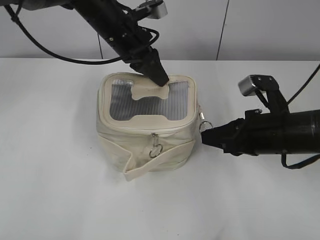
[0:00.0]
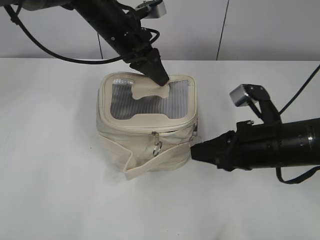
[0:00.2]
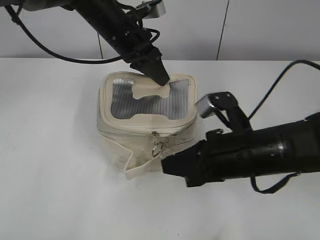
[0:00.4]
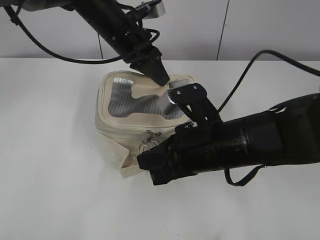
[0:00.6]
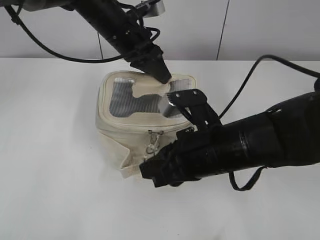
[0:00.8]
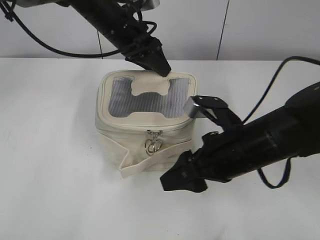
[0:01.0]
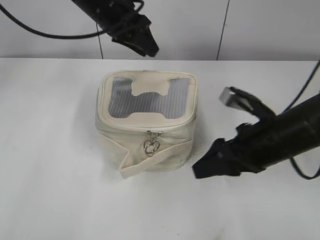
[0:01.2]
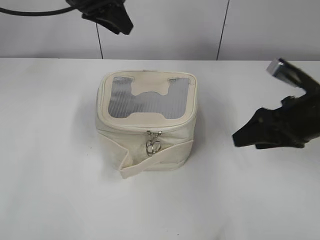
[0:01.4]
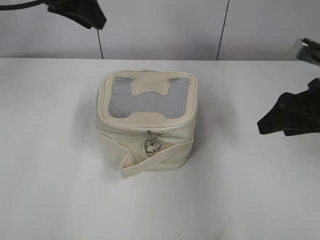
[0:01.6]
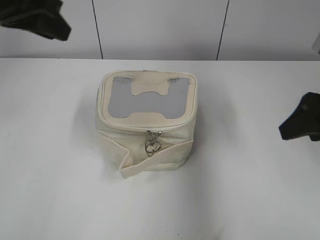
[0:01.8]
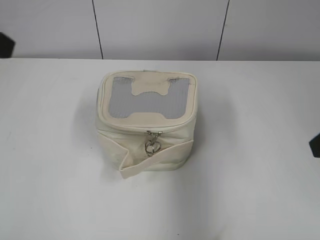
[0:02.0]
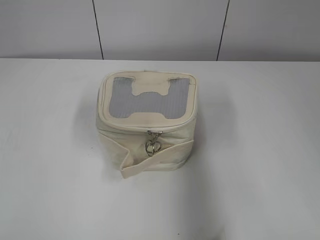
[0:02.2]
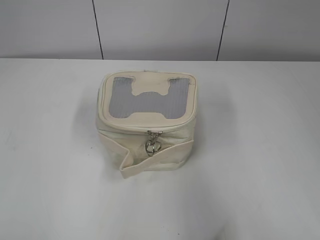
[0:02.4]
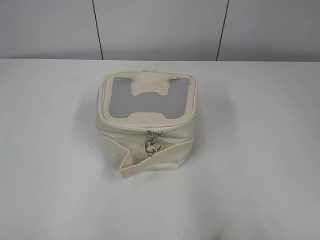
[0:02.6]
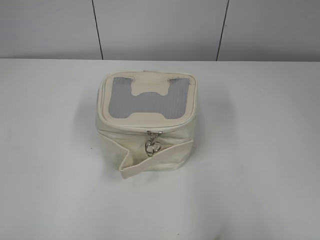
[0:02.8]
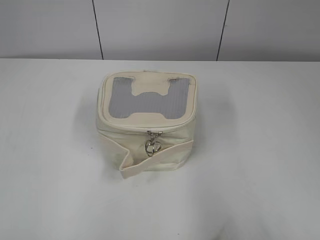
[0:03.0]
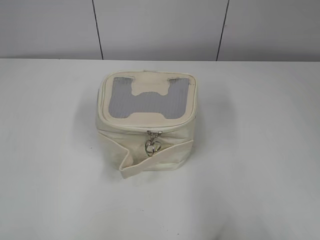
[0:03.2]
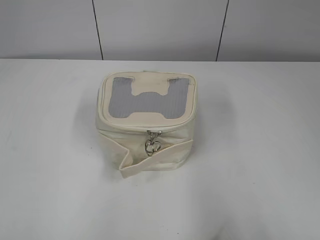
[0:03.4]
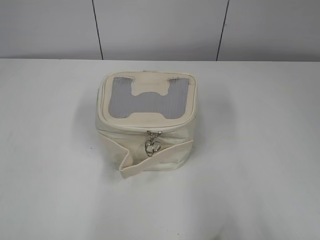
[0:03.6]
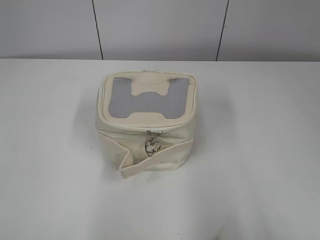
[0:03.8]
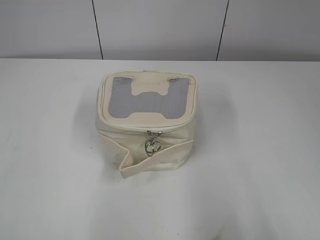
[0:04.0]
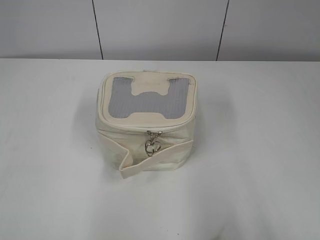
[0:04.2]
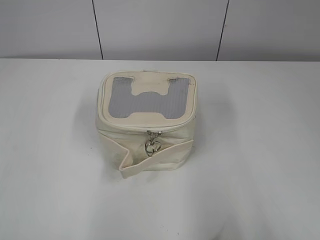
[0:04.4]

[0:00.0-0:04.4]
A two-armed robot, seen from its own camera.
0.0 to 1.4 s: The right gripper reaches about 10 cm to the left, then returns, and opens up. Meanwhile the left gripper moves upward and to the left, roughly 10 cm, and opens.
1.4 to 3.0 s: The left gripper moves backward and to the left, roughly 50 cm. Meanwhile the right gripper is displaced backward by about 25 cm.

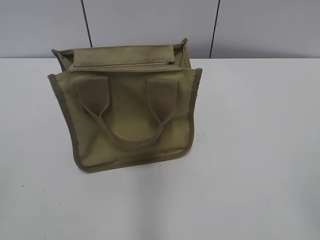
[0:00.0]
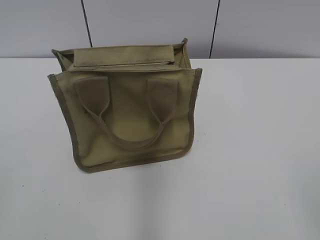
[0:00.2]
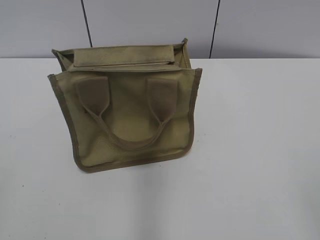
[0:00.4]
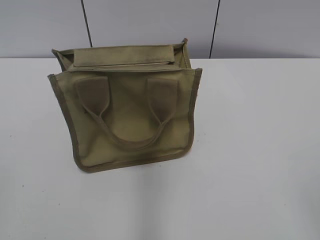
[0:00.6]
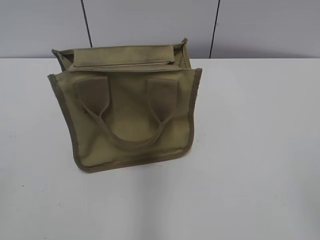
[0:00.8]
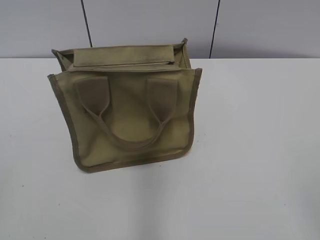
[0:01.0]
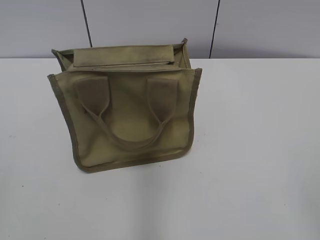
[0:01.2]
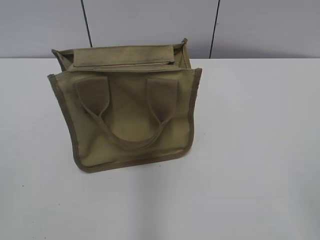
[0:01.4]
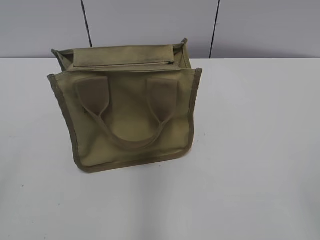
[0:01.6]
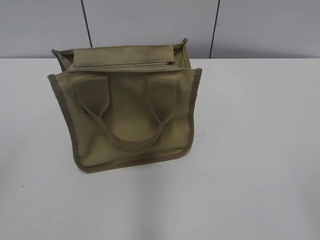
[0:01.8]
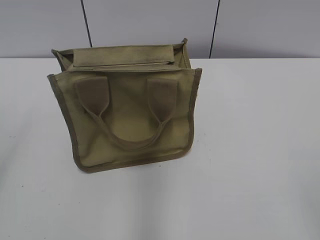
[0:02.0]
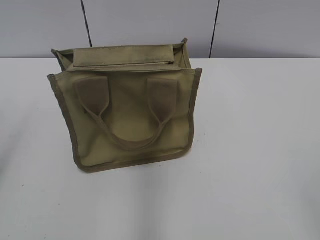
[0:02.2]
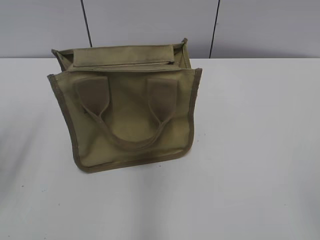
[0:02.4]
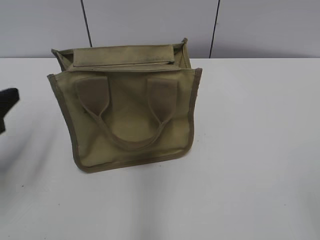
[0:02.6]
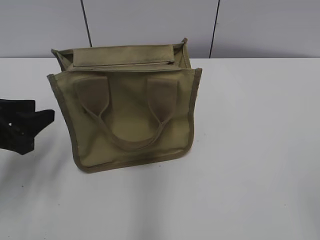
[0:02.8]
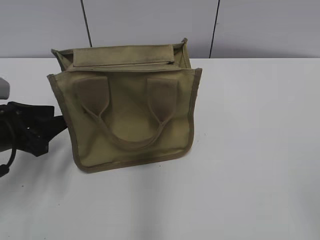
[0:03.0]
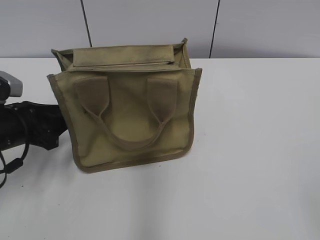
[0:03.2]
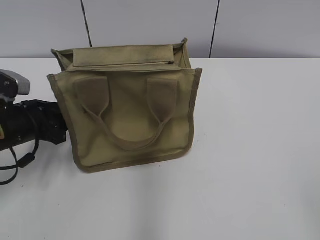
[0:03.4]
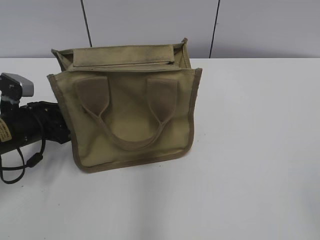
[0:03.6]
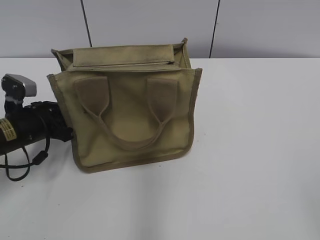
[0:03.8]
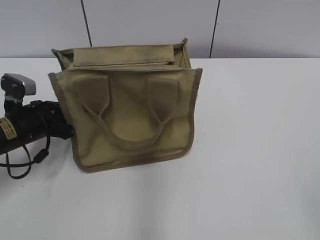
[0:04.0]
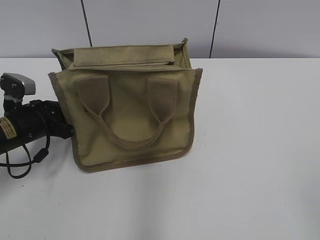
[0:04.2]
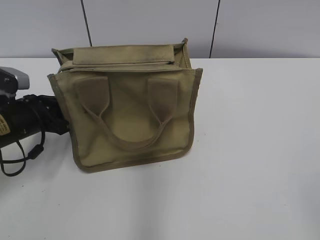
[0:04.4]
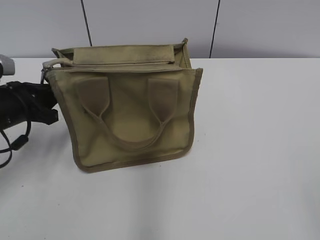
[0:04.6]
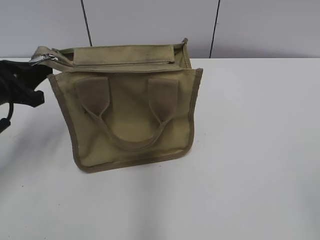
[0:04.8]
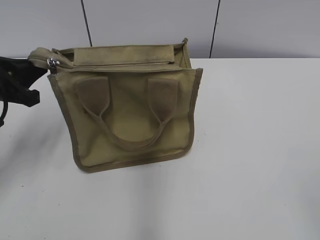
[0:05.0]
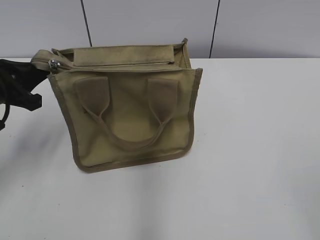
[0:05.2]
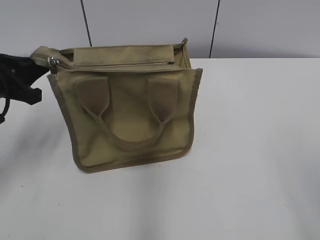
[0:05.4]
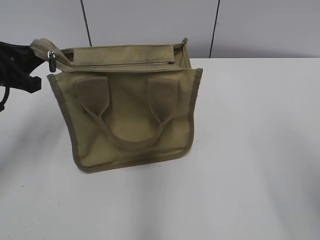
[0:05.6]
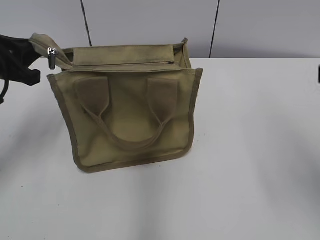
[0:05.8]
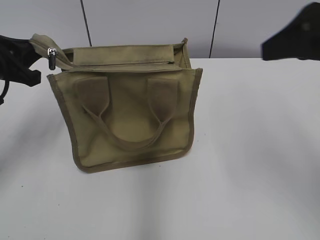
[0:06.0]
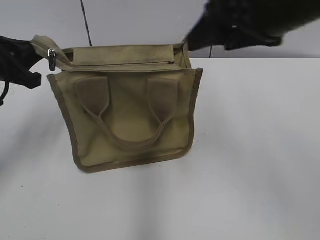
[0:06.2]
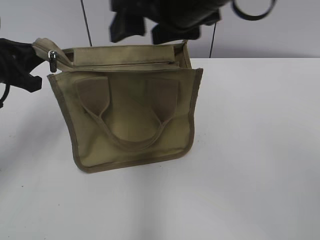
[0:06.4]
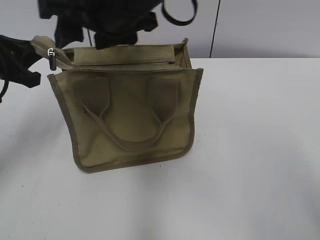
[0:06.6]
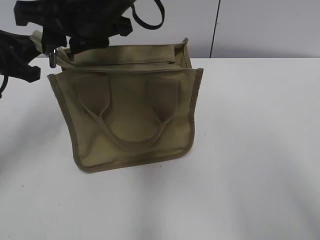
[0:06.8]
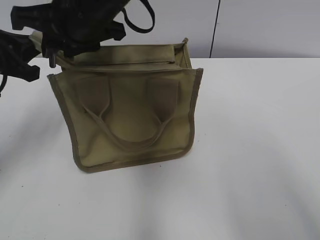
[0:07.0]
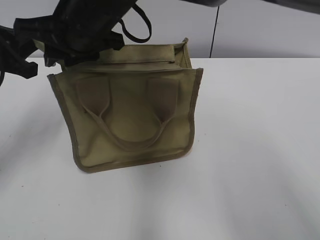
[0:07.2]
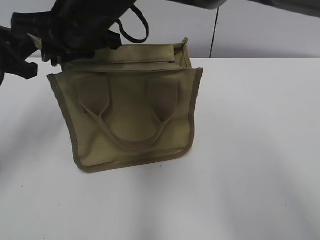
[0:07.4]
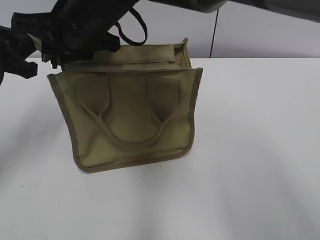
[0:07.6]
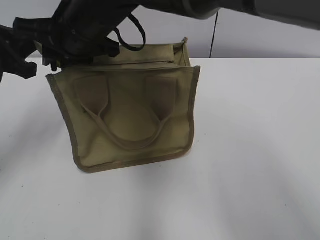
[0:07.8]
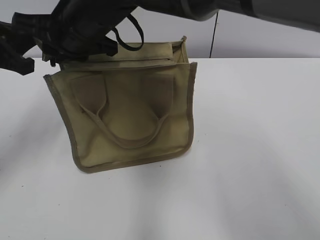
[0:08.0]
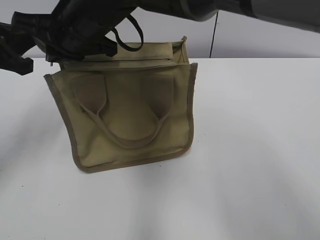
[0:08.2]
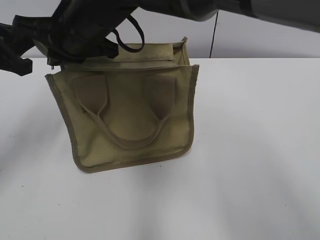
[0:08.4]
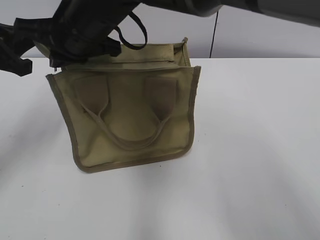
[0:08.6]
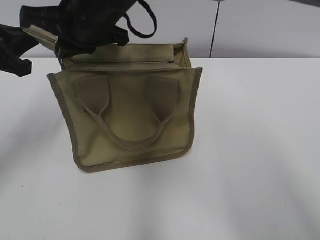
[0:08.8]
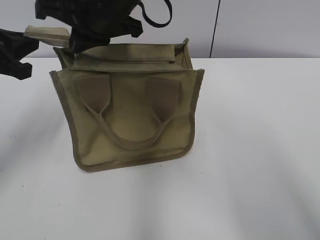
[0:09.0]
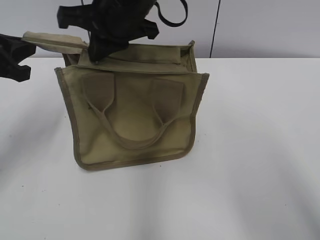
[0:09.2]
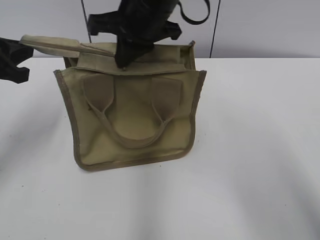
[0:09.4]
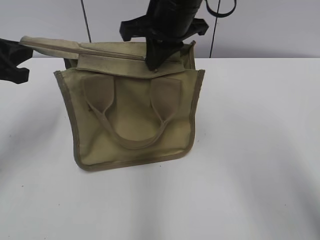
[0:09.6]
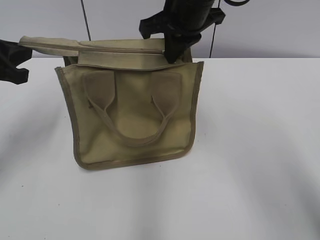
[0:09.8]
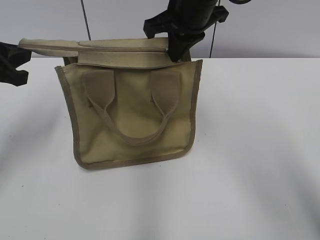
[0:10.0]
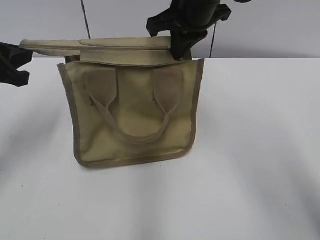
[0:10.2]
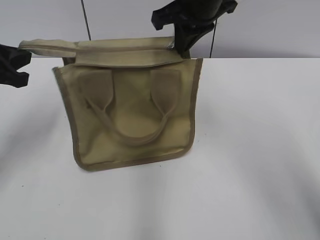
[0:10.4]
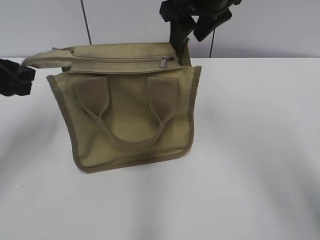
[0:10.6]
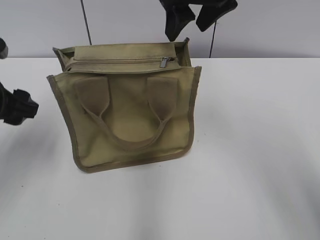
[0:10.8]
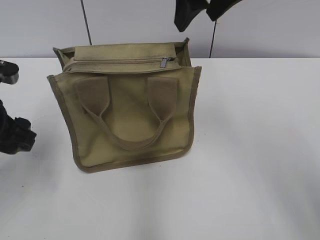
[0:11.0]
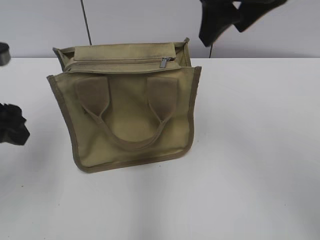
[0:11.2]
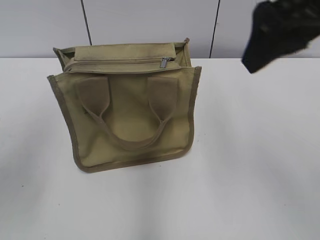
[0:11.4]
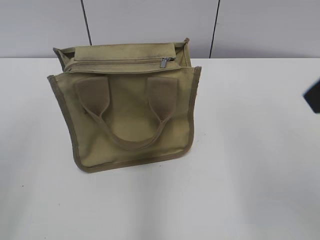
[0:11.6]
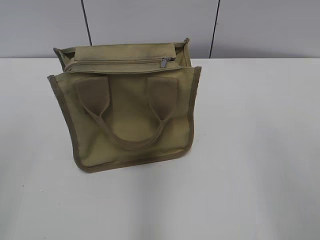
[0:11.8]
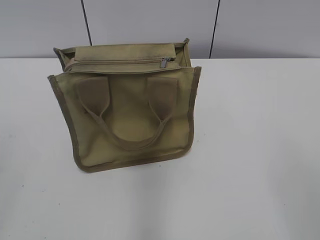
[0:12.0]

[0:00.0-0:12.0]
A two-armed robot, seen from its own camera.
Step, 0.0 to 10.2 s: Zip up the bag with your right hand.
Step, 10.6 to 10.8 s: Grab the zipper with your left hand.
1.6 to 3.0 s: The left gripper heads forward and downward, covering about 30 cm.
3.0 to 4.4 s: The left gripper travels forward by some 5 cm, and closes.
4.4 to 6.0 s: The left gripper shifts some 10 cm upward. Meanwhile the right gripper heads forward, covering some 25 cm.
6.0 to 7.6 s: The right gripper shifts about 30 cm to the left, and closes.
7.6 to 9.0 s: The right gripper closes its fingers.
9.0 to 10.4 s: The right gripper heads to the right, covering roughly 10 cm.
10.4 to 12.0 s: The left gripper heads backward, covering approximately 25 cm, and opens up. The right gripper travels backward and to the right by about 40 cm, and opens.

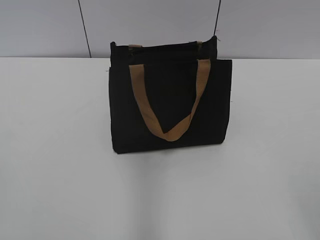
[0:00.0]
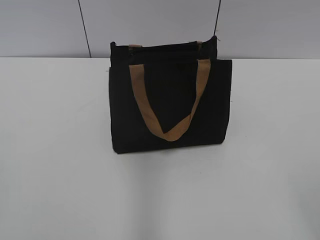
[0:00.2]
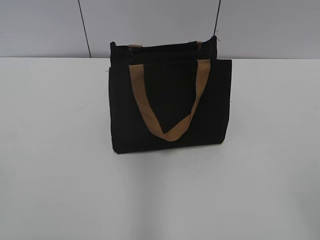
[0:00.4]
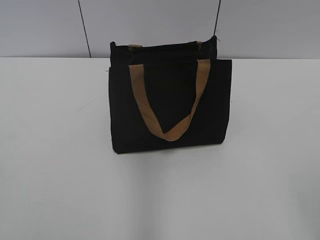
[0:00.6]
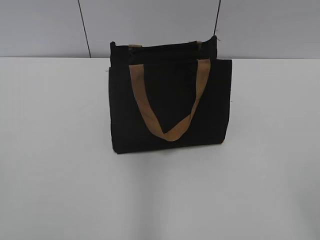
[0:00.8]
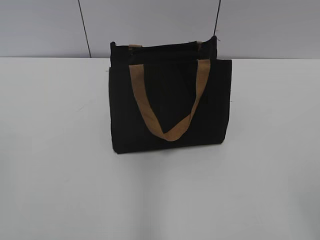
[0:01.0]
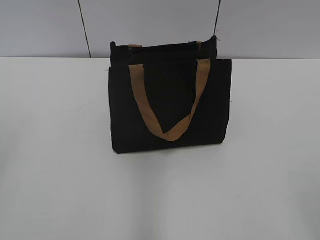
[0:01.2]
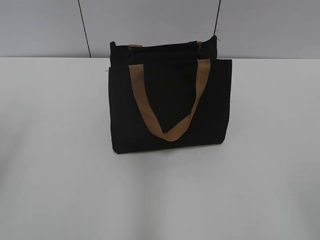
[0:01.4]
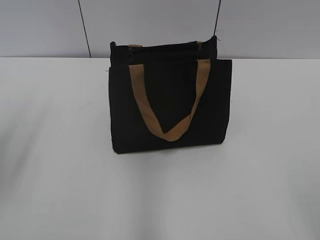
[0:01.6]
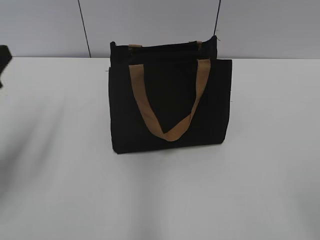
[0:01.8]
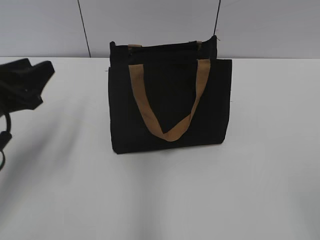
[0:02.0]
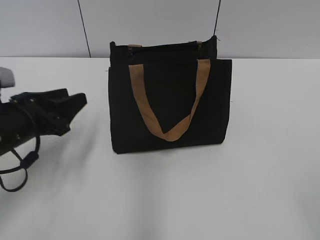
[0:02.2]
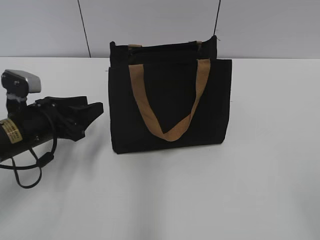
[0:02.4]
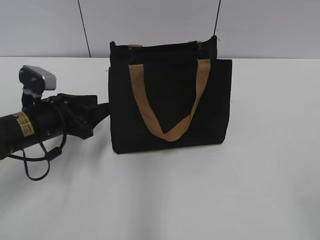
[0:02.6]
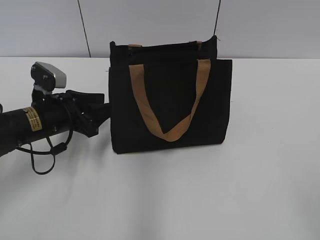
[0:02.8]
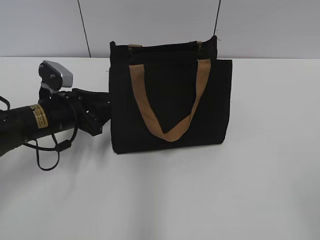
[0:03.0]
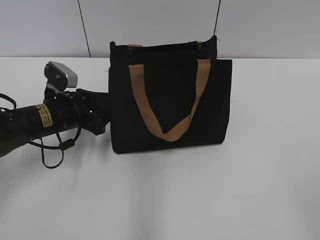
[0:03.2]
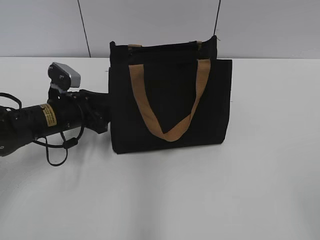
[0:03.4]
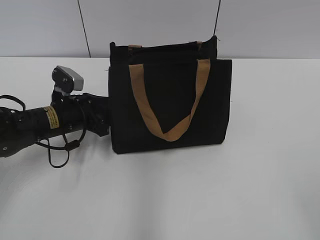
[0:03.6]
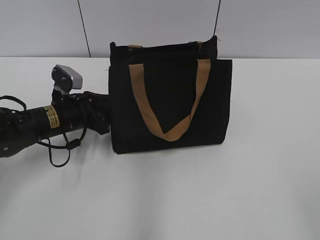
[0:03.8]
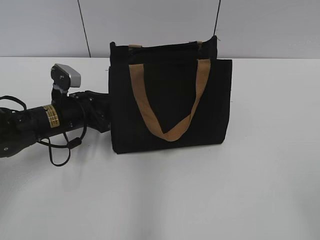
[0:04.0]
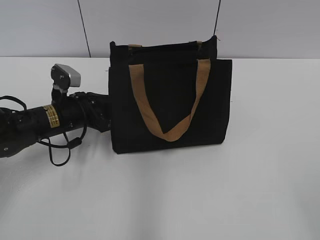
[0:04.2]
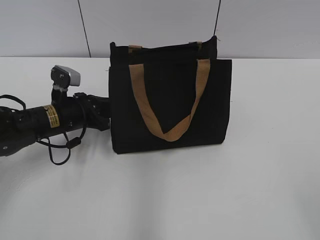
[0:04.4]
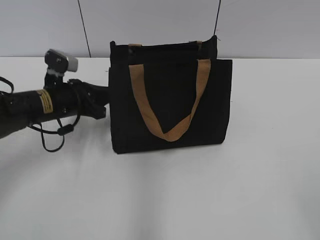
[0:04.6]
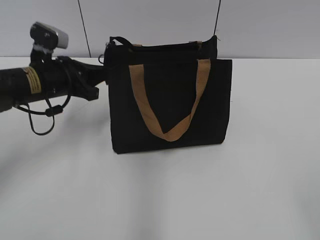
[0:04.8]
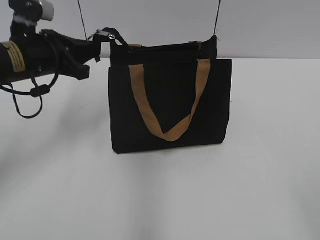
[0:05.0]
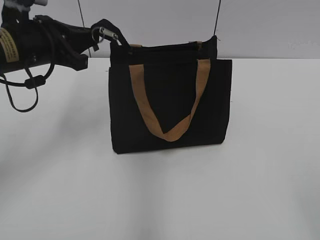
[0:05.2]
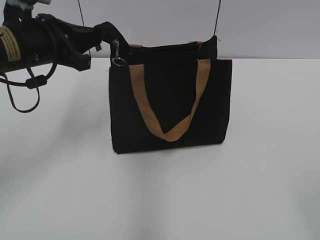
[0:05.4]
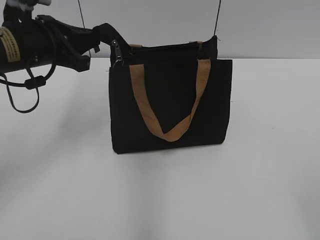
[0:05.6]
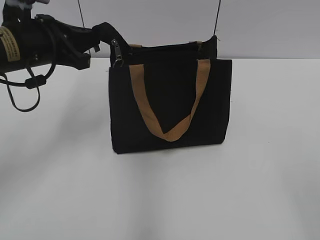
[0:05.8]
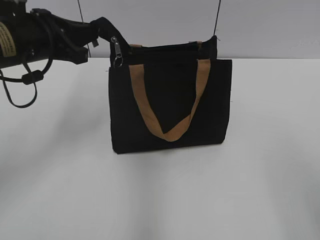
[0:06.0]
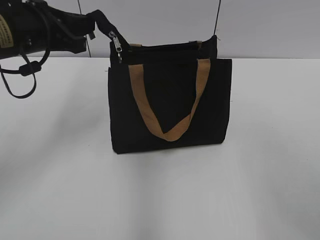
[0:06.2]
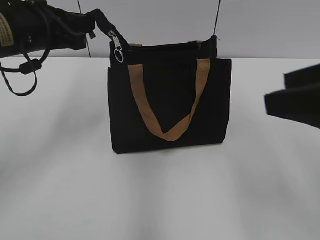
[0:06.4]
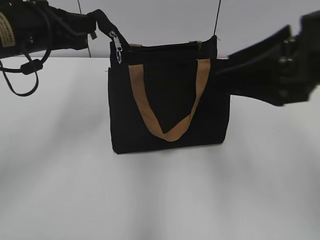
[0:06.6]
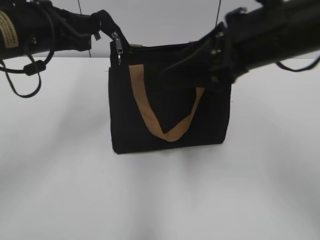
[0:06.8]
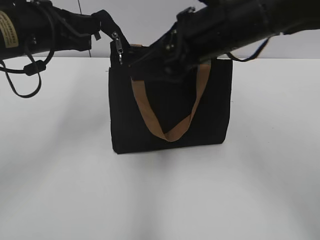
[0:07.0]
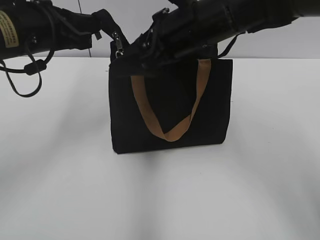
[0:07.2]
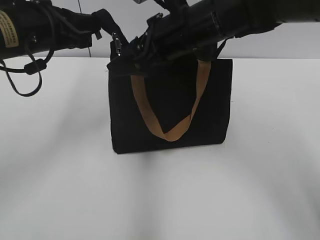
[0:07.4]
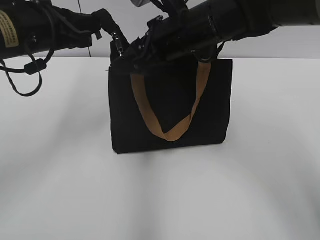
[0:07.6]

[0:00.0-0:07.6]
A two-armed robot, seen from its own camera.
1.6 to 3.0 s: The left gripper moves downward, forward and to the right, some 30 cm.
3.0 to 4.6 s: The left gripper closes up.
4.6 to 6.0 s: The left gripper shifts about 15 cm upward.
6.0 to 7.6 s: The right gripper heads forward and to the left, covering some 40 cm.
